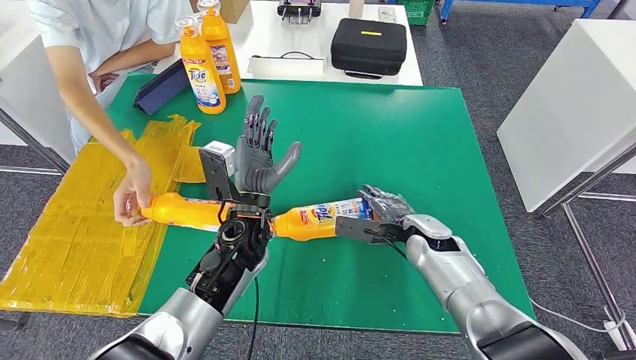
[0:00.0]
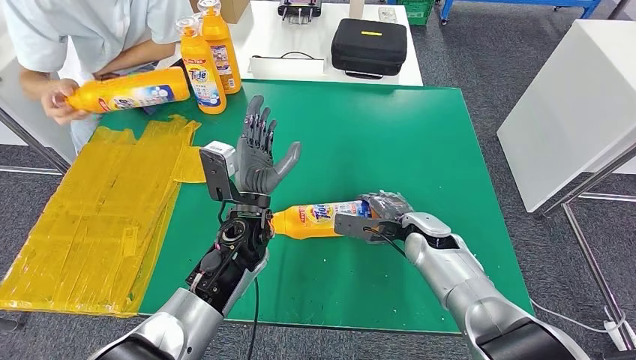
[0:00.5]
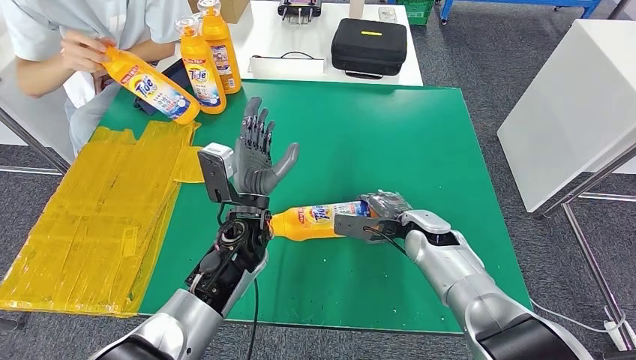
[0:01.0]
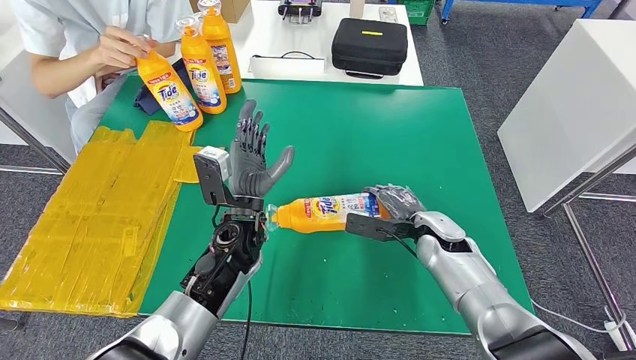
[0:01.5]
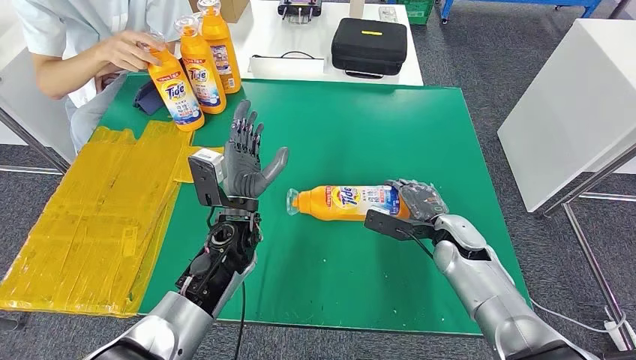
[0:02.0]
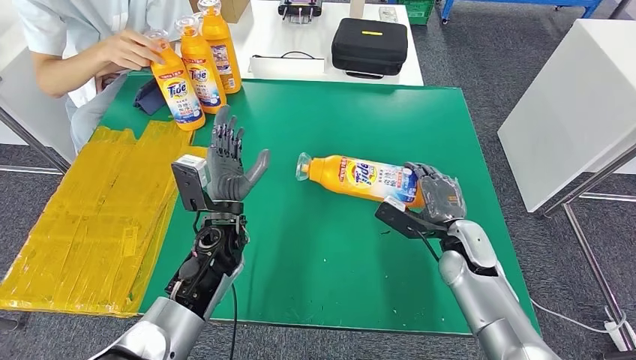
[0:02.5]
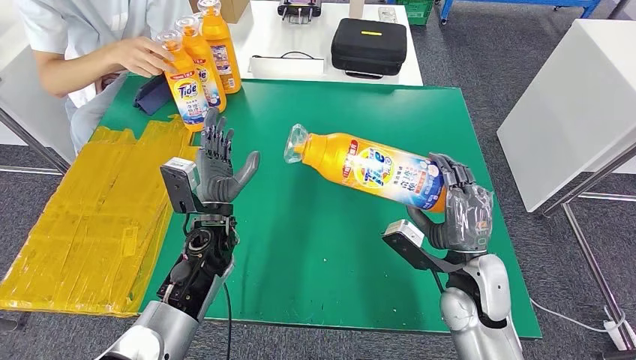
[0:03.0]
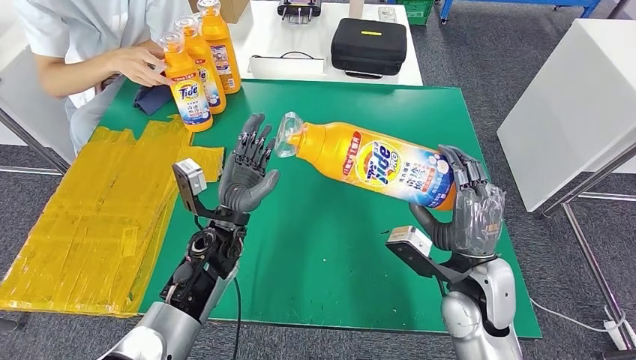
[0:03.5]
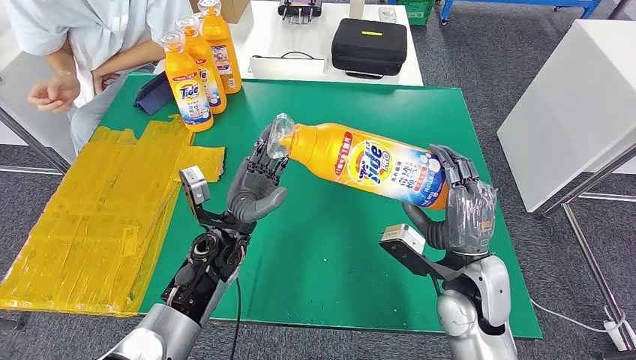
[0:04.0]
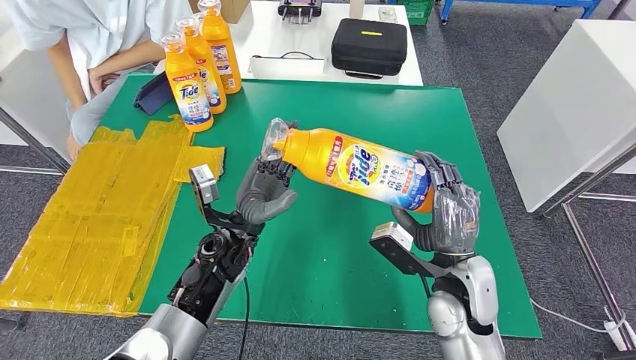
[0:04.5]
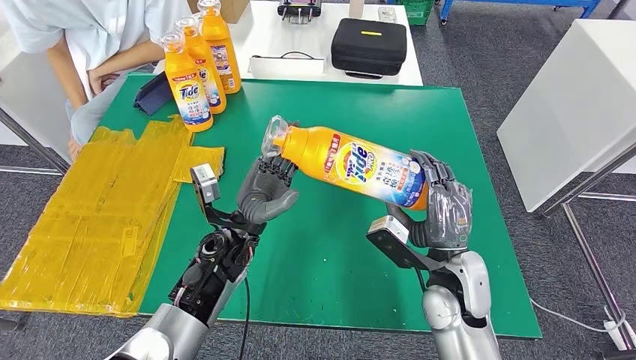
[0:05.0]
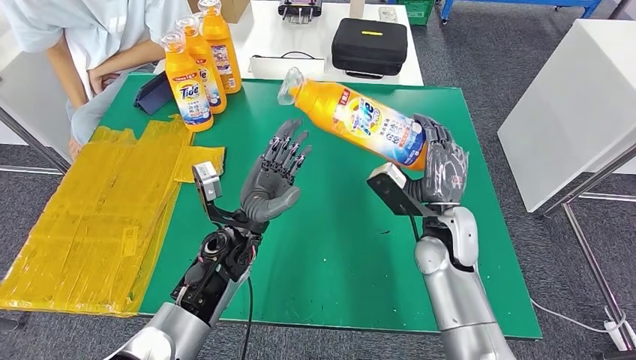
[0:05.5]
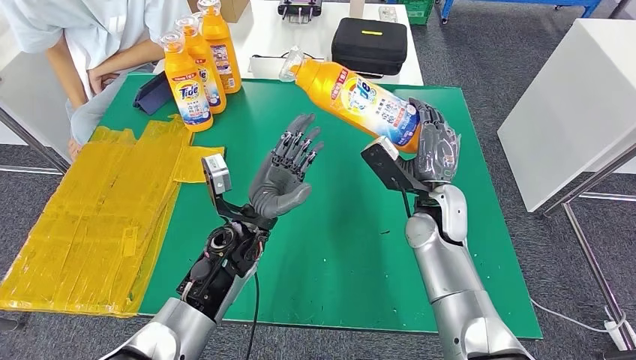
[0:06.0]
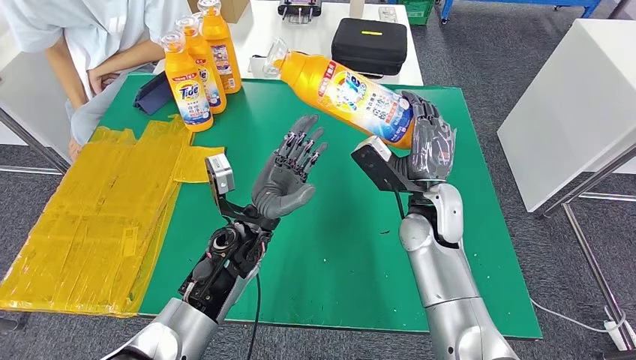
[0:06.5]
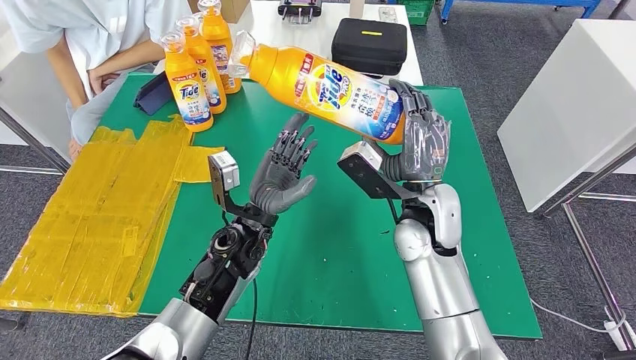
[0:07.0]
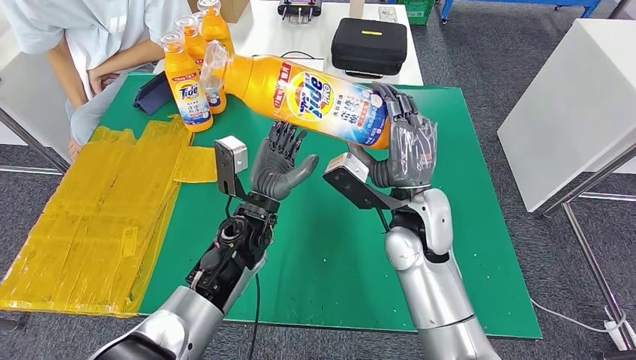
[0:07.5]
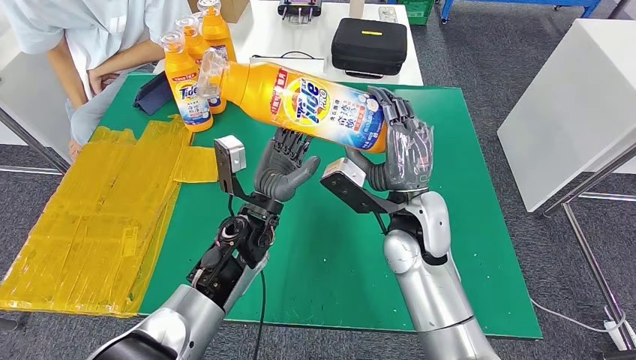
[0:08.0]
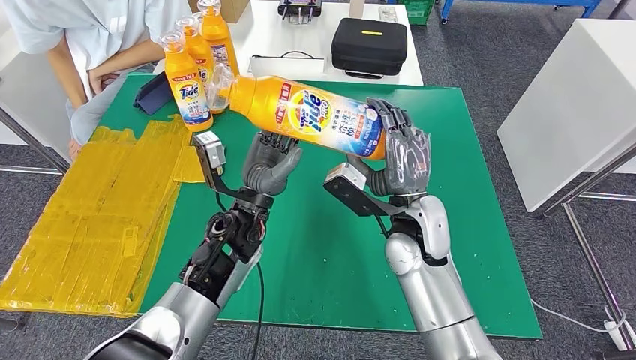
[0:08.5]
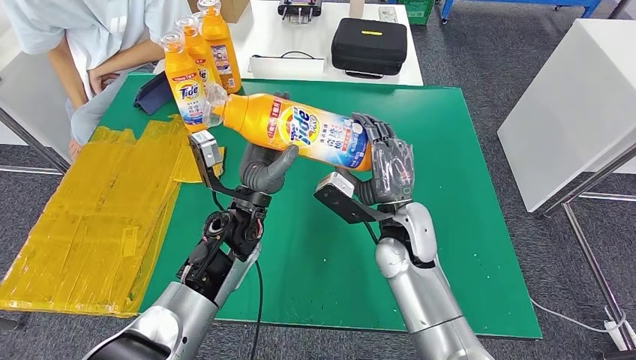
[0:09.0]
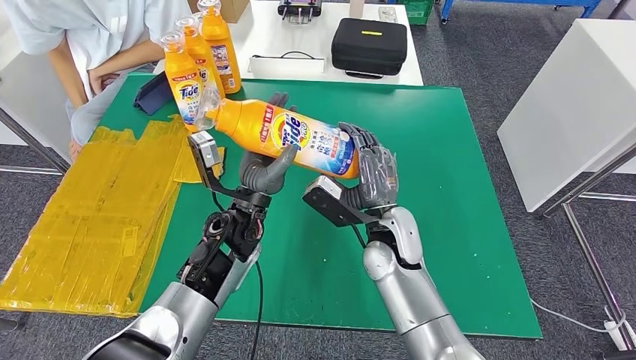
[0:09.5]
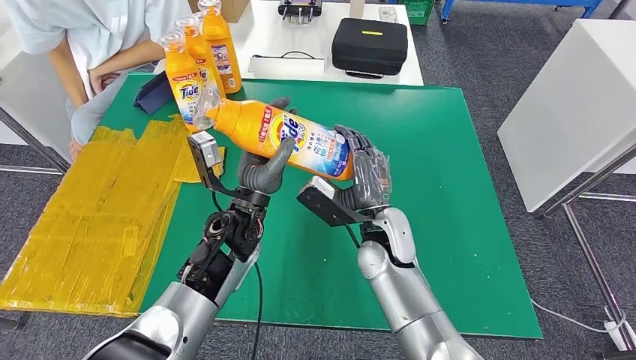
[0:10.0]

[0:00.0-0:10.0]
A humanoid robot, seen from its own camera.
Step, 0:00.0 to 0:04.5: Pick up the bottle from the table.
0:00.0 to 0:02.0: The right hand heads to the right, covering roughly 5 cm.
0:06.0 to 0:08.0: The right hand shifts roughly 5 cm to the left.
0:08.0 to 0:10.0: The right hand heads downward, covering roughly 5 cm.

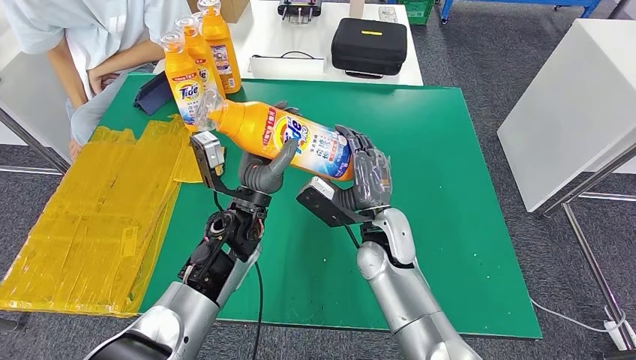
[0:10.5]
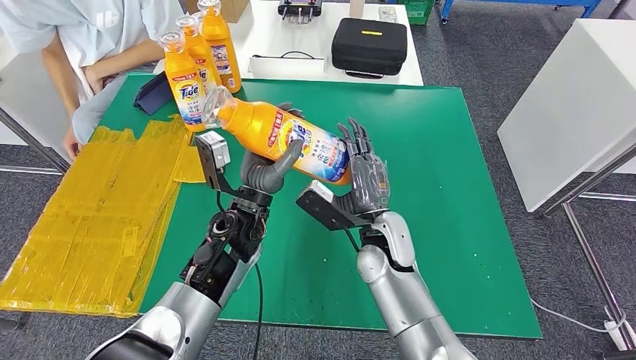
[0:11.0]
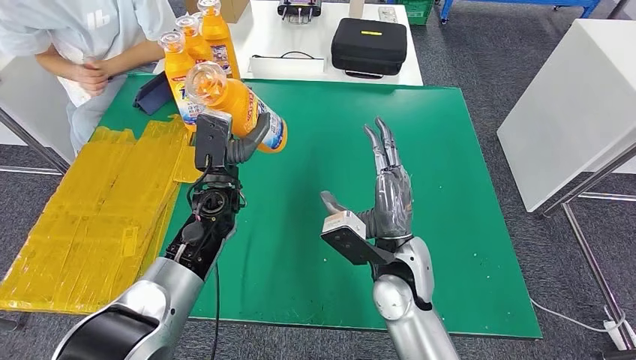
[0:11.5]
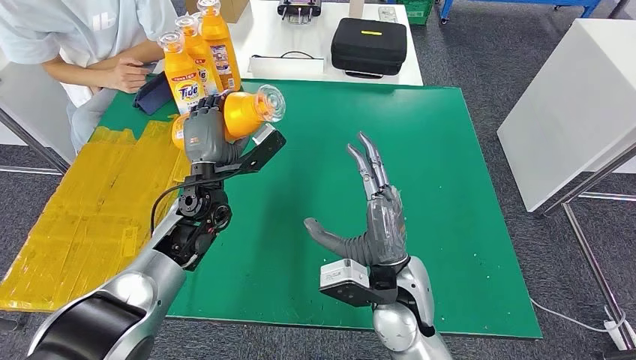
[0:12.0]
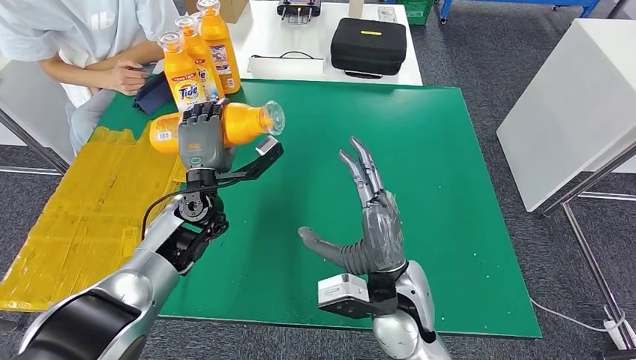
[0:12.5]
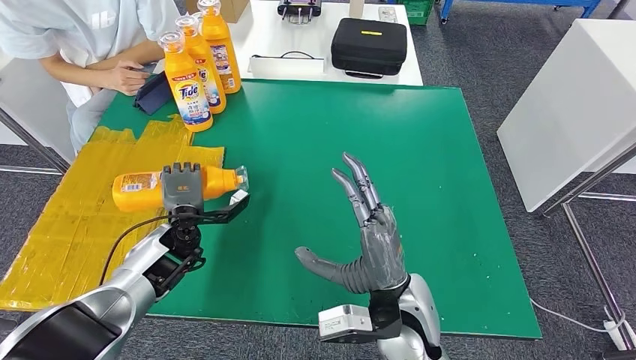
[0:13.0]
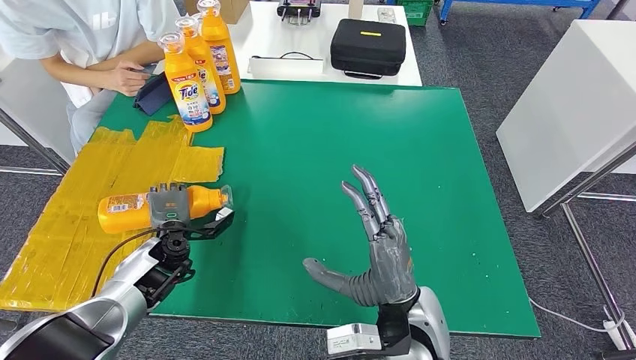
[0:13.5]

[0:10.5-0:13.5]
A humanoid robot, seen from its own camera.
Step, 0:10.5 to 0:13.5: Flip the bottle to face forward.
0:12.0 to 0:13.5: The left hand shifts roughly 15 cm downward, to the left and backward.
